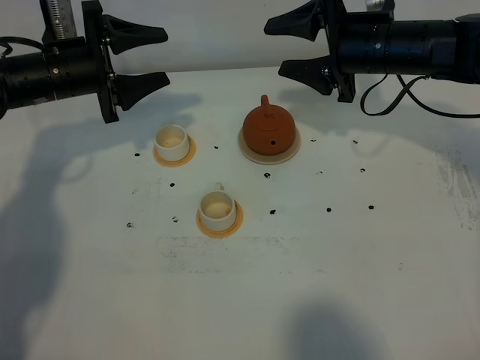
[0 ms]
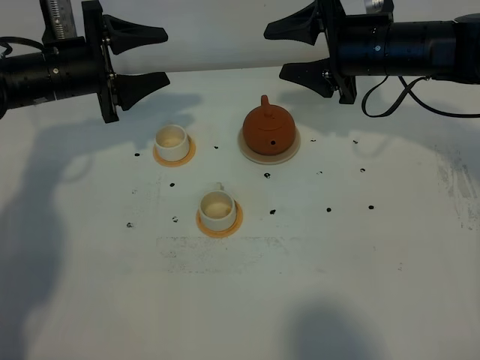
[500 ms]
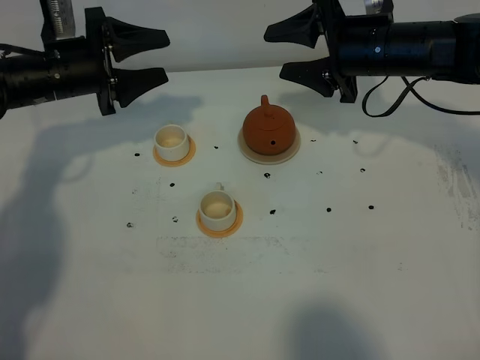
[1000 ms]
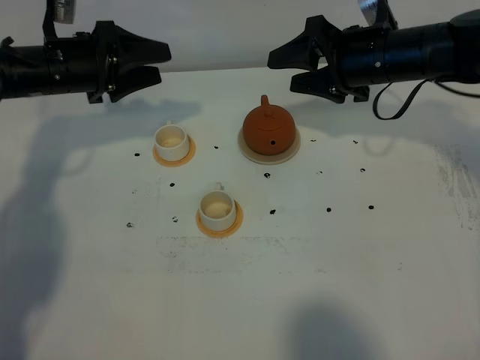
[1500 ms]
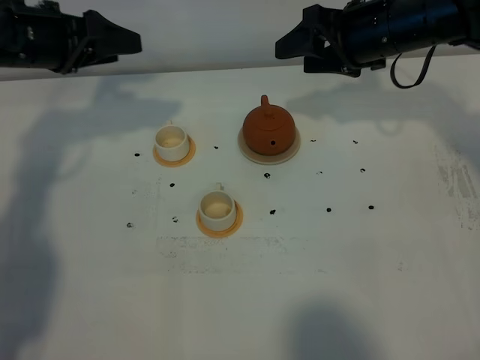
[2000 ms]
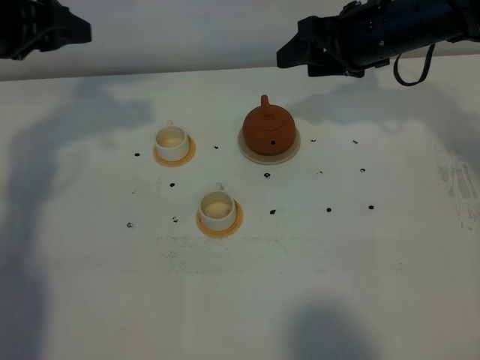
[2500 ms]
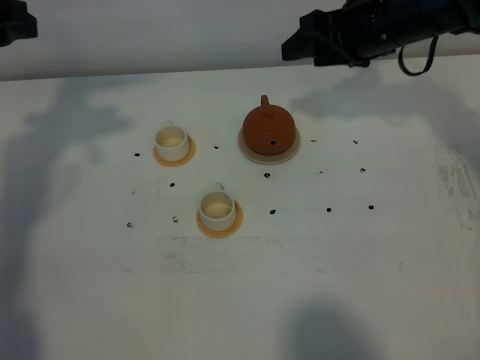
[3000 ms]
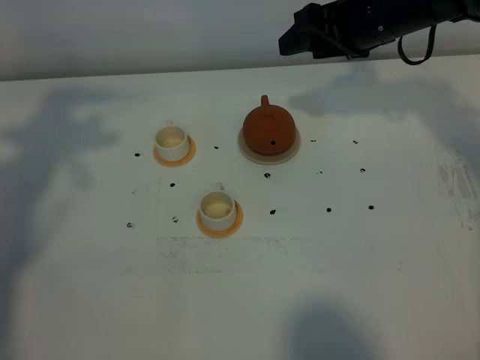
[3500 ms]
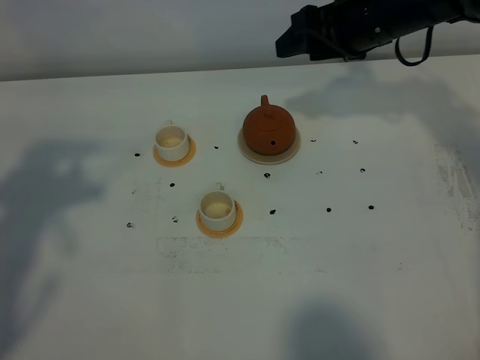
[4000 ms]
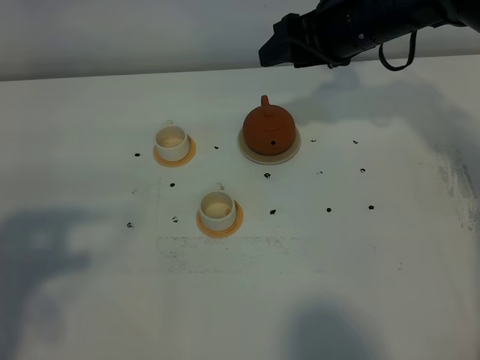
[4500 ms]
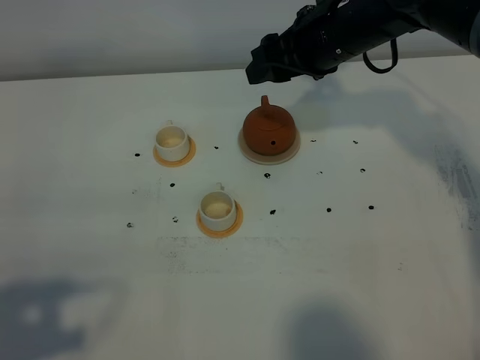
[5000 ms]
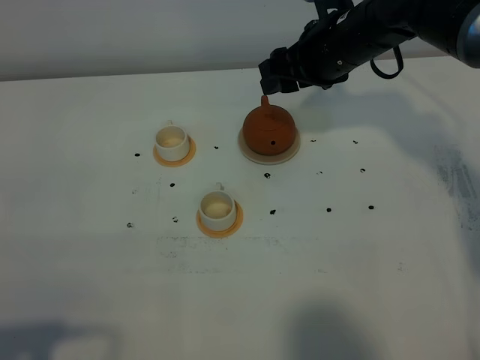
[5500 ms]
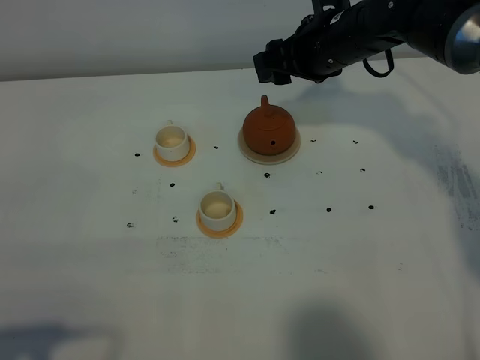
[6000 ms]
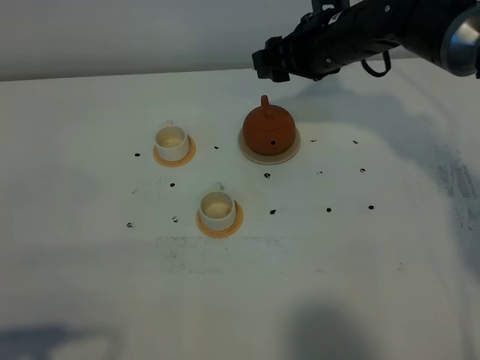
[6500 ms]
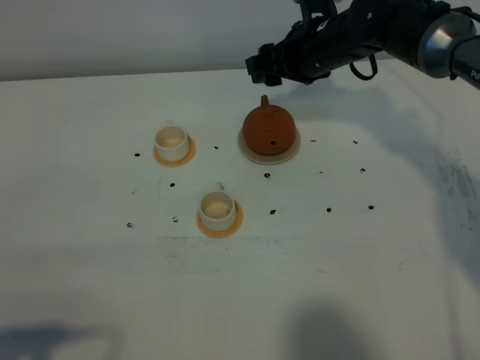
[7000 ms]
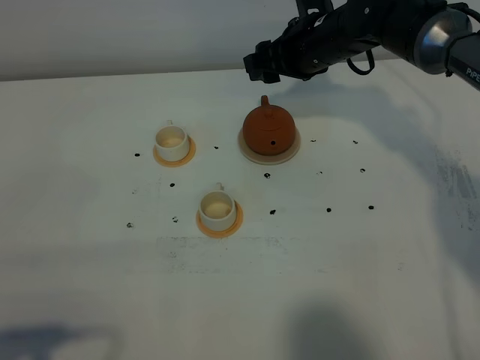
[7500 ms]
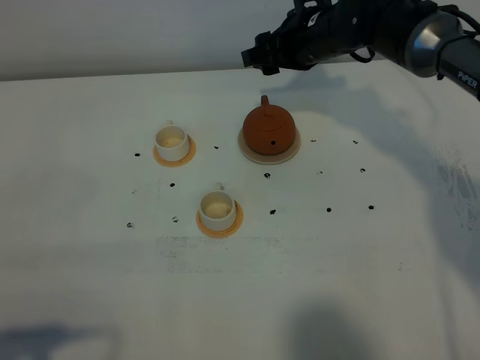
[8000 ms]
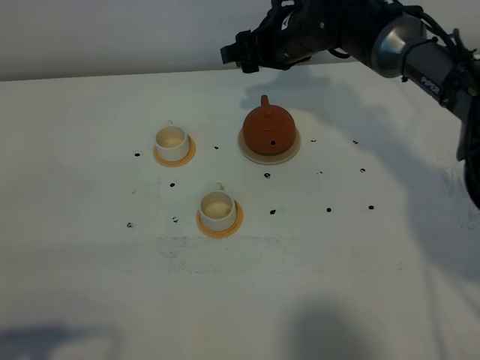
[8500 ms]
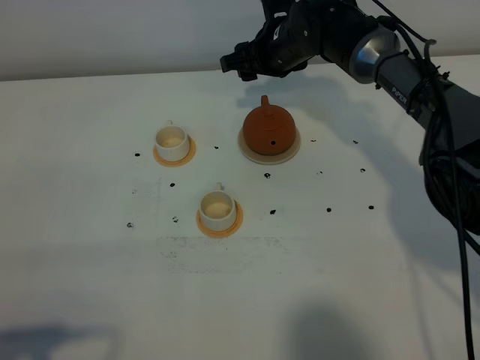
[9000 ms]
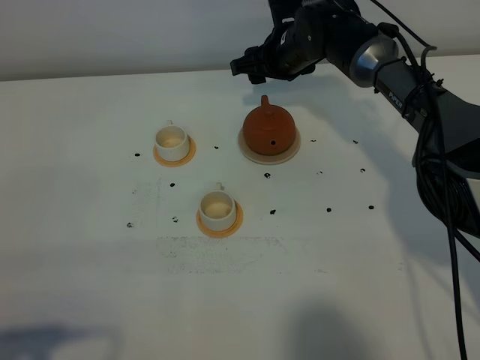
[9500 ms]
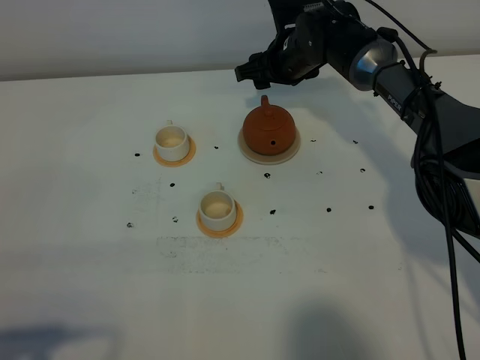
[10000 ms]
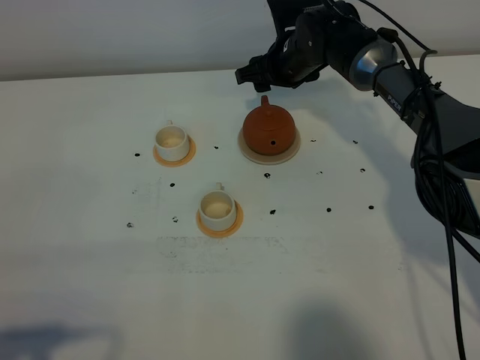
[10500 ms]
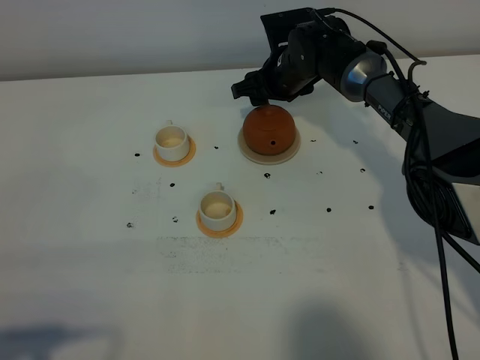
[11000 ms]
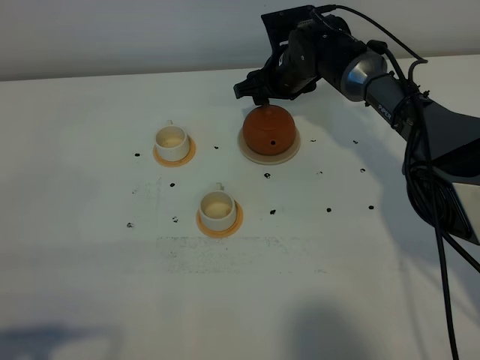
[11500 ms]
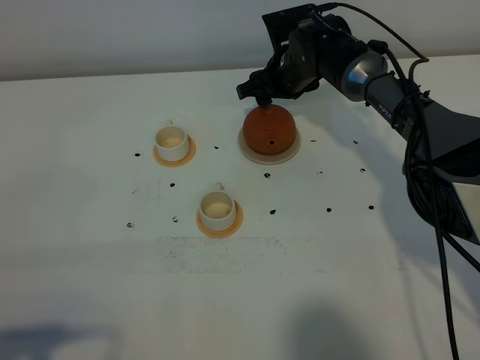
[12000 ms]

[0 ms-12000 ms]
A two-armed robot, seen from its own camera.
Task of the whole recording: grasp the brown teapot and pour the tea into the two white teacups one by one, put the brown teapot back in its original place.
0 ms to 2000 ms: The left gripper moves upward, some 5 cm.
2000 ms to 4000 ms: The left gripper heads backward and upward, covering about 25 cm.
4000 ms to 6000 ms: The left gripper shifts roughly 25 cm backward and downward, while the right gripper shifts by approximately 5 cm.
6000 ms to 8000 ms: The grippers stay close to where they were, moving slightly.
8000 ms to 10000 ms: The right gripper is displaced downward and forward by some 10 cm.
10000 ms to 12000 ms: There are only small adjustments of the grippers.

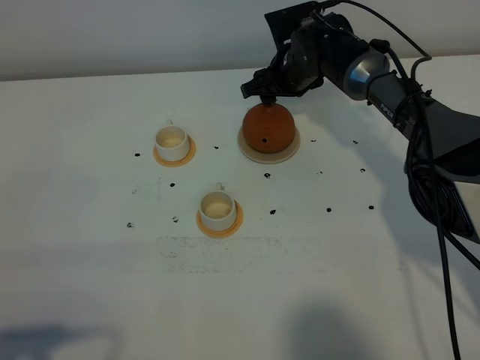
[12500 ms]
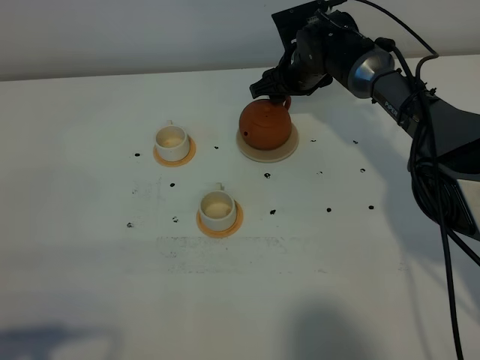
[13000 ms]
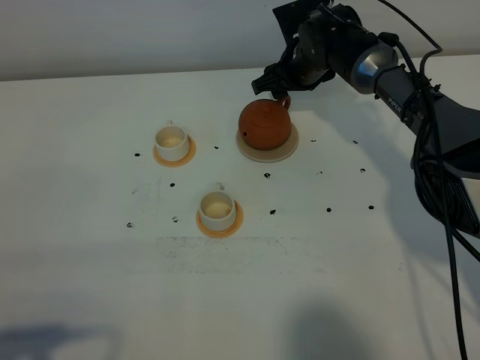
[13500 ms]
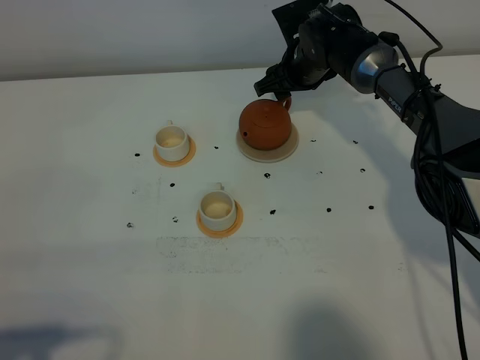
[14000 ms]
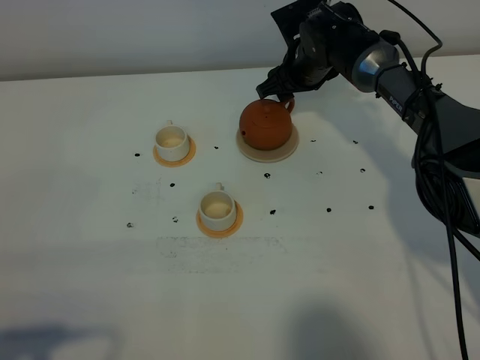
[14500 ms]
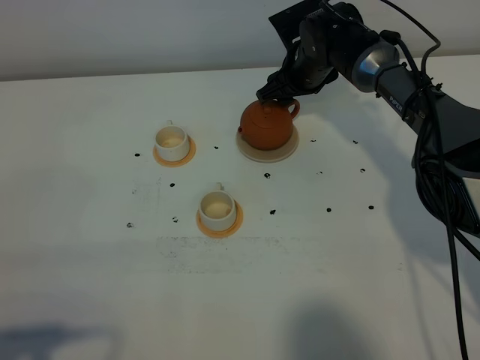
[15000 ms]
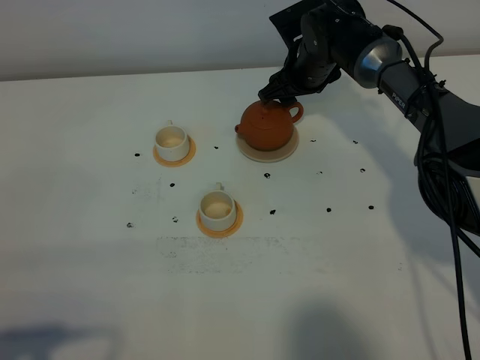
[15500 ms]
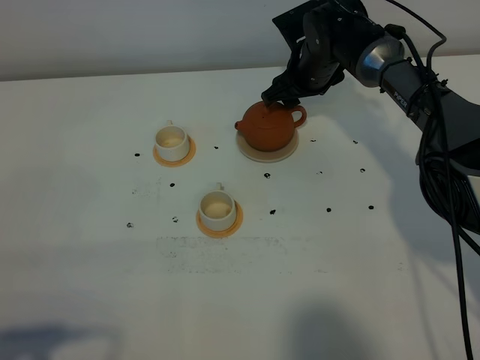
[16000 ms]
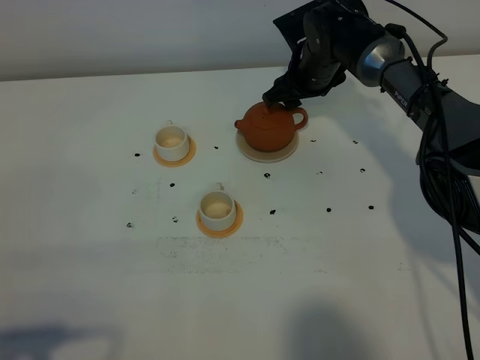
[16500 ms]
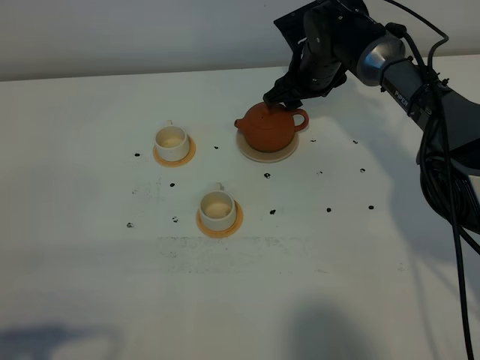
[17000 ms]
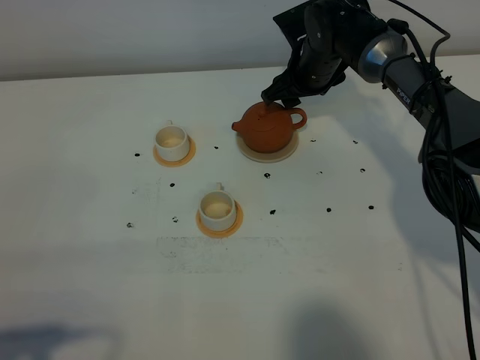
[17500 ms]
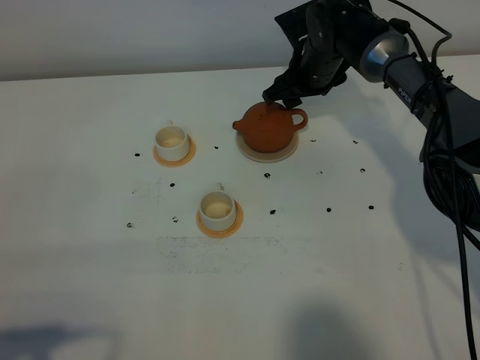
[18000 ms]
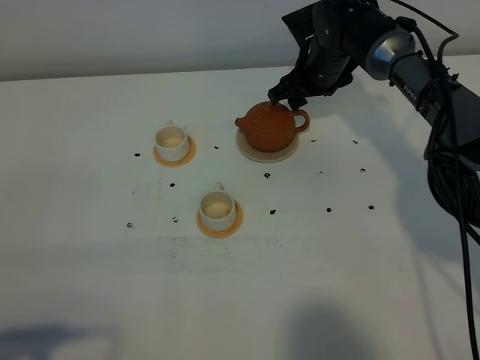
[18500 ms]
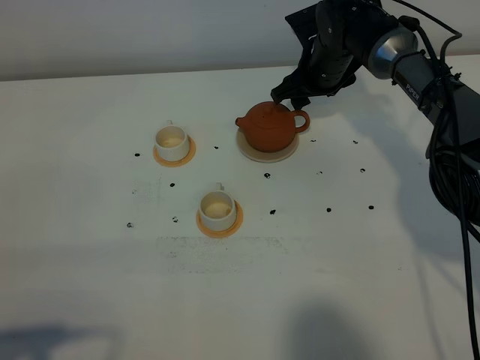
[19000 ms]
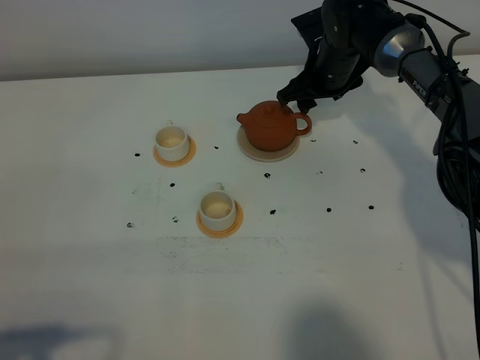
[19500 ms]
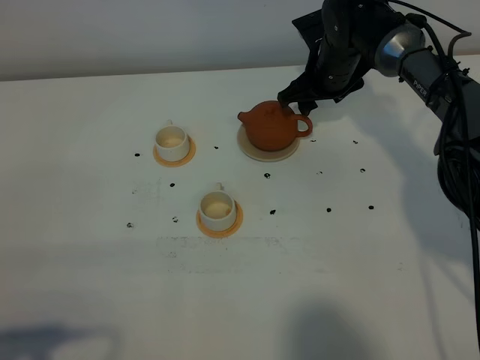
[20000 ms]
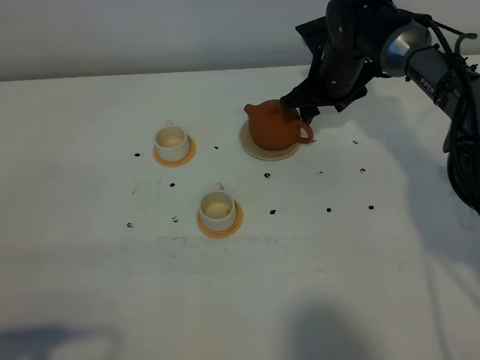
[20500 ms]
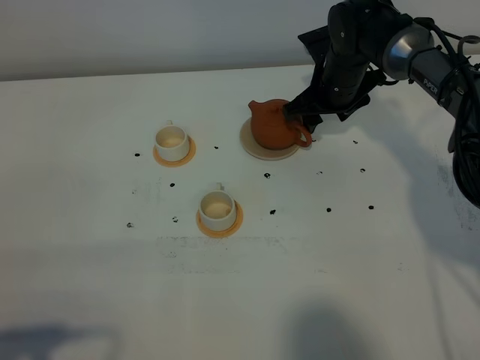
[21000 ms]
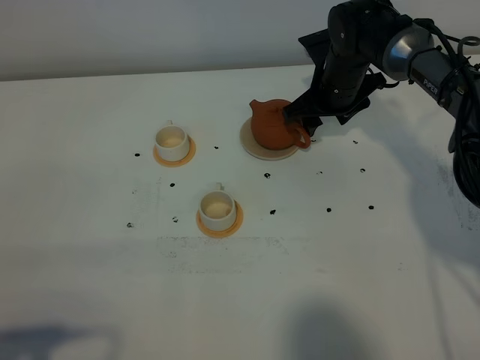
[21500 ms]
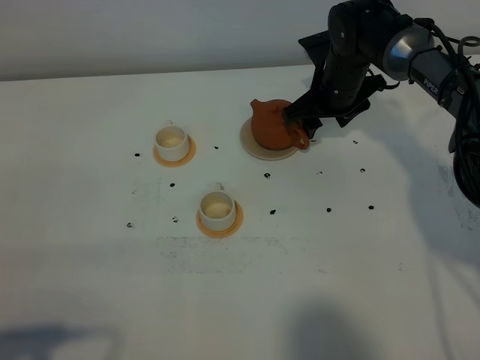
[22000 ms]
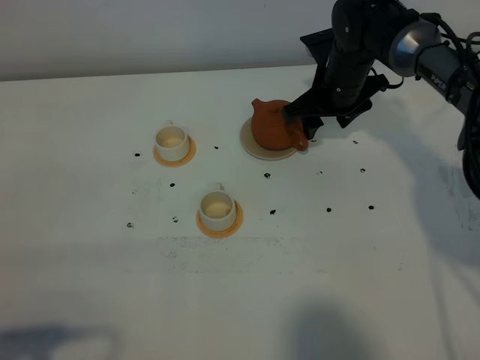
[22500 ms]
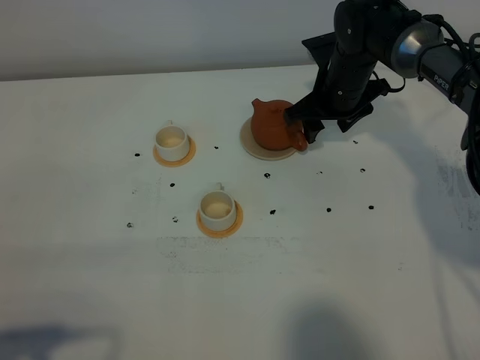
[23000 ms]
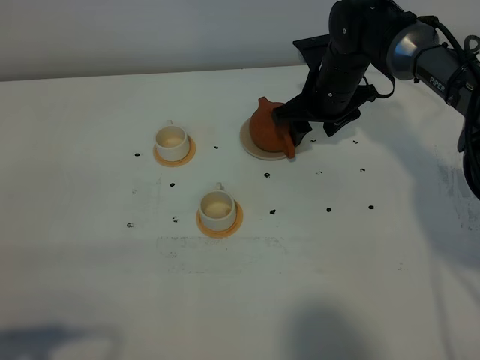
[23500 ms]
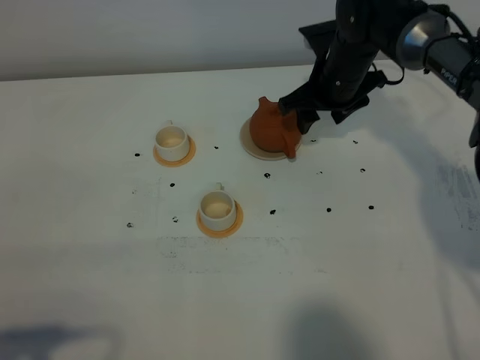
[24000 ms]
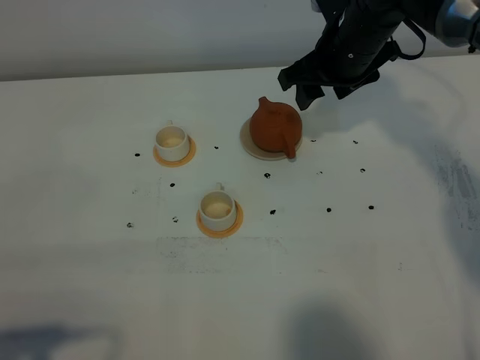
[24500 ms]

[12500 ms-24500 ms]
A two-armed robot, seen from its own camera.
Task of the whole recording: grasp the brown teapot and pour the tea into the two white teacups one by one, put the brown teapot back in its original place.
12500 ms to 16500 ms: The grippers move only a little.
16500 ms to 18500 ms: Both grippers stay about where they are.
18500 ms to 22500 ms: The grippers stay close to where they were, moving slightly.
22500 ms to 24500 ms: The right gripper moves upward, about 10 cm.

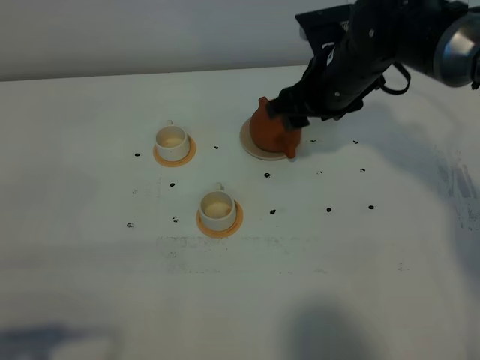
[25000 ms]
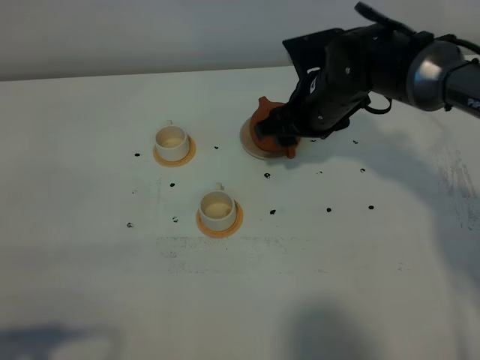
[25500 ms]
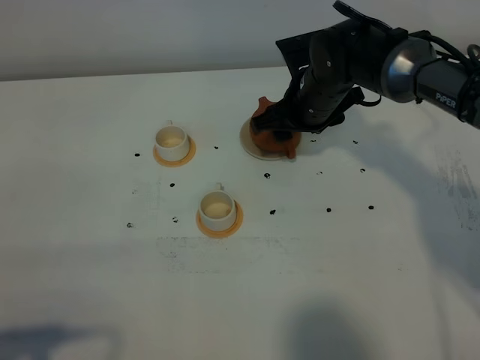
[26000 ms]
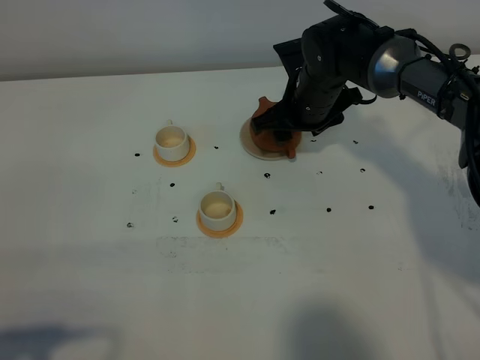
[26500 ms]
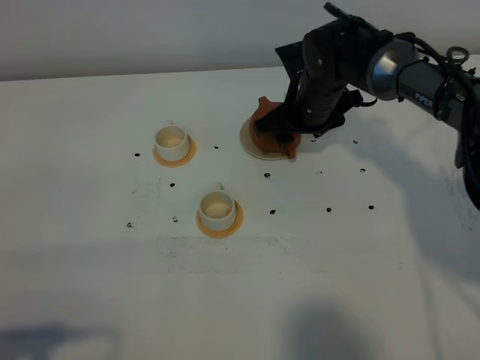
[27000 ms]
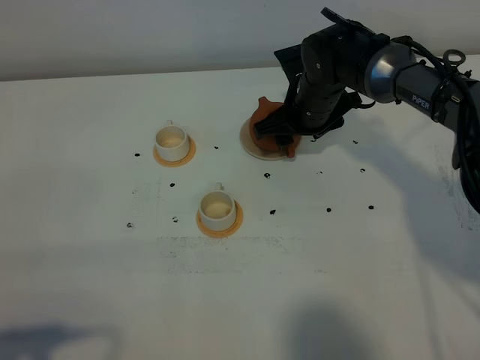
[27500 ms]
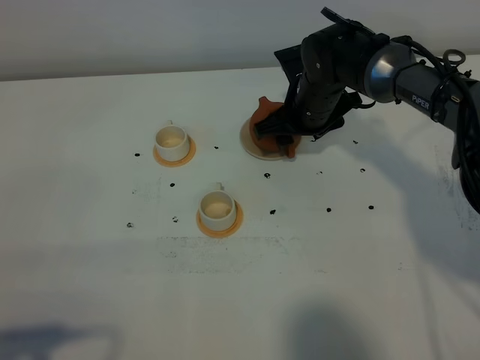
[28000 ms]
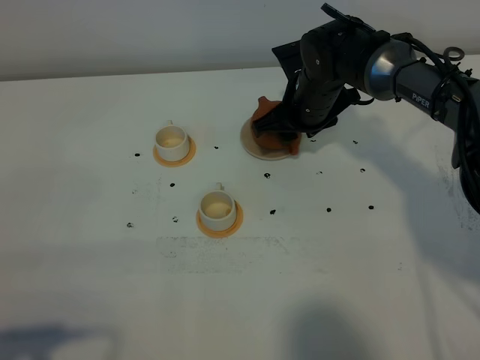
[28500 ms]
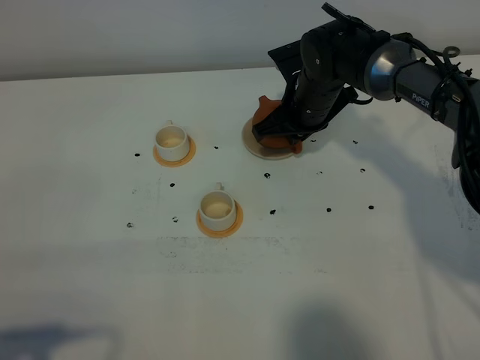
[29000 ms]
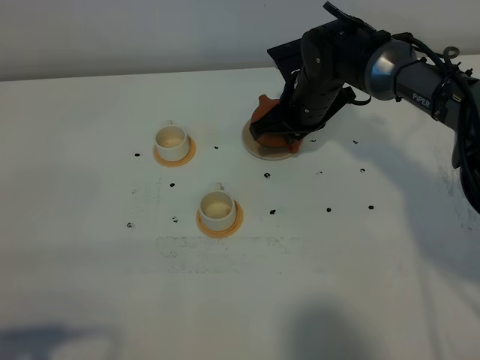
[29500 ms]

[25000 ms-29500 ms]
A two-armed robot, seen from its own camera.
Task of the whole recording: grasp the brown teapot and pour the tea into the two white teacups one by one, put the brown teapot back in its original place.
25000 ms to 27000 ms: The right gripper moves downward, about 5 cm.
27000 ms to 29500 ms: The right gripper closes its fingers.
